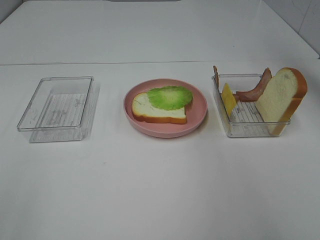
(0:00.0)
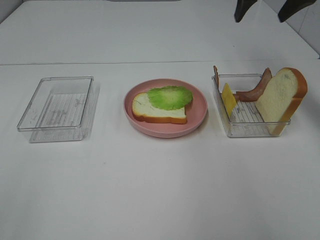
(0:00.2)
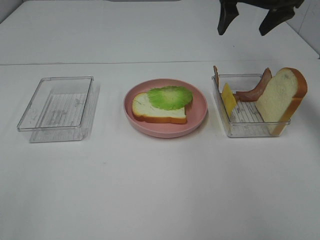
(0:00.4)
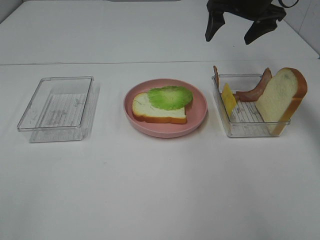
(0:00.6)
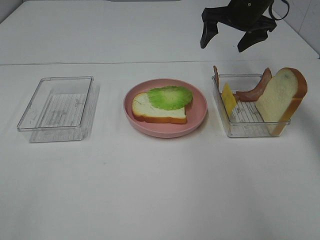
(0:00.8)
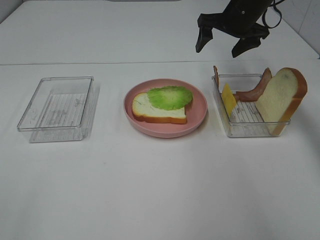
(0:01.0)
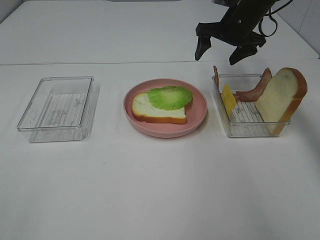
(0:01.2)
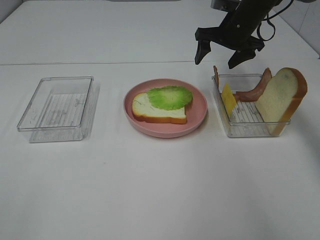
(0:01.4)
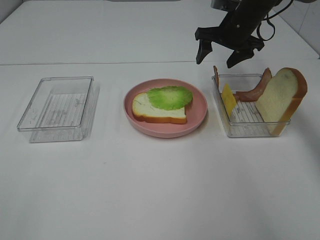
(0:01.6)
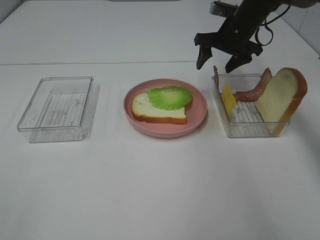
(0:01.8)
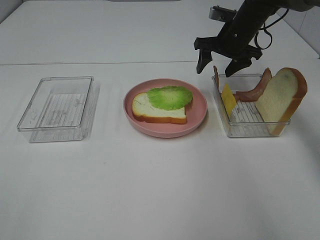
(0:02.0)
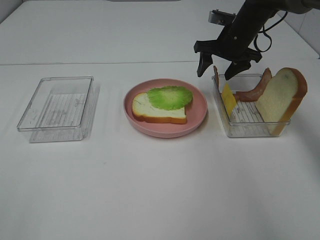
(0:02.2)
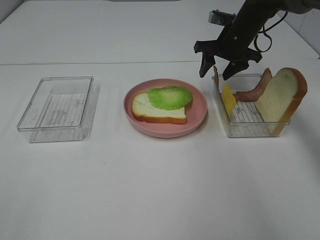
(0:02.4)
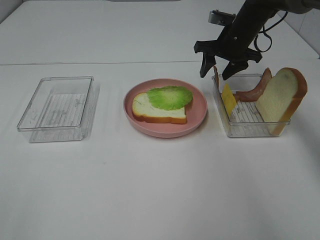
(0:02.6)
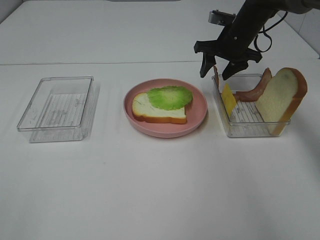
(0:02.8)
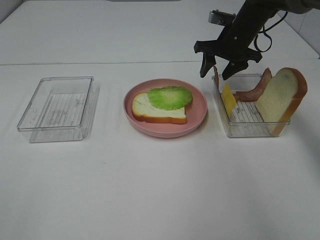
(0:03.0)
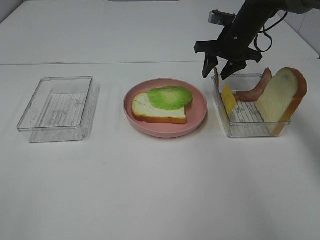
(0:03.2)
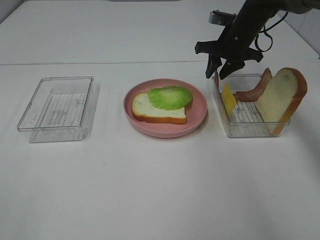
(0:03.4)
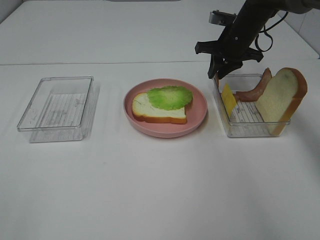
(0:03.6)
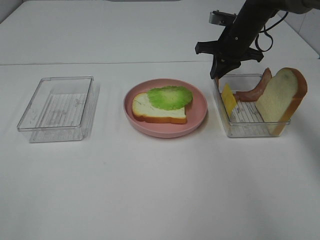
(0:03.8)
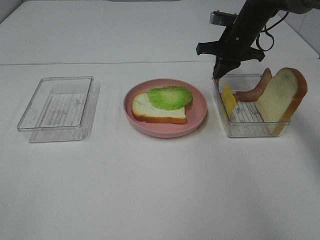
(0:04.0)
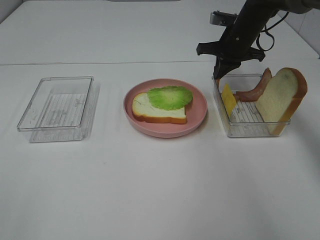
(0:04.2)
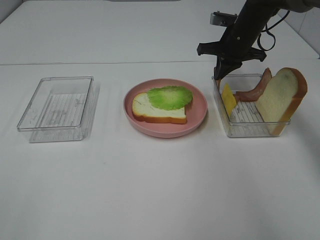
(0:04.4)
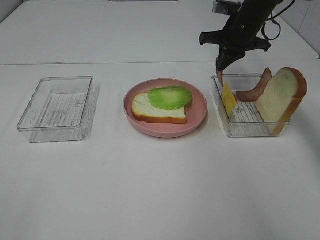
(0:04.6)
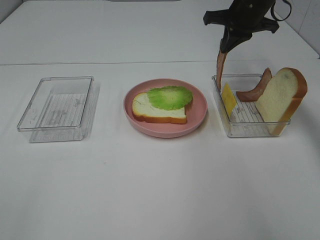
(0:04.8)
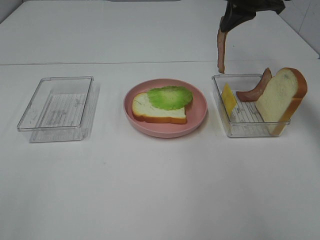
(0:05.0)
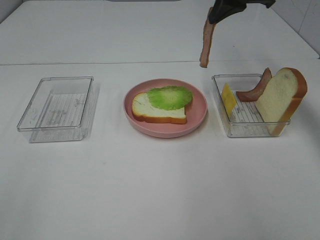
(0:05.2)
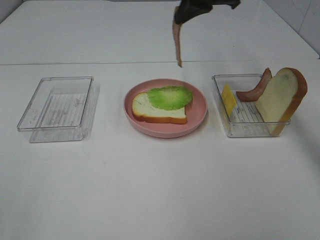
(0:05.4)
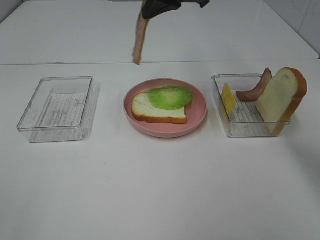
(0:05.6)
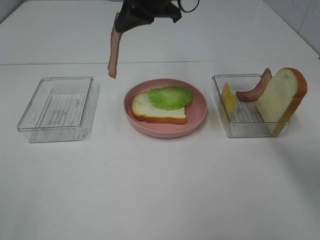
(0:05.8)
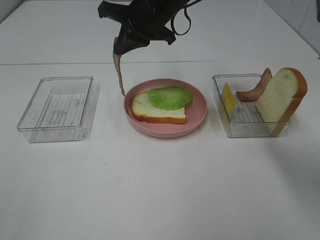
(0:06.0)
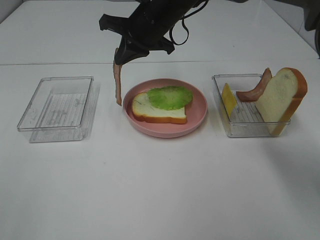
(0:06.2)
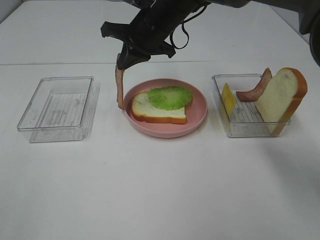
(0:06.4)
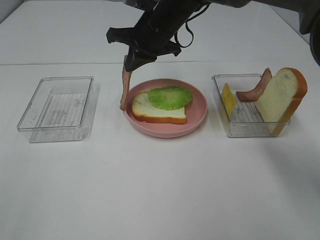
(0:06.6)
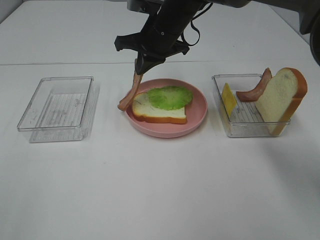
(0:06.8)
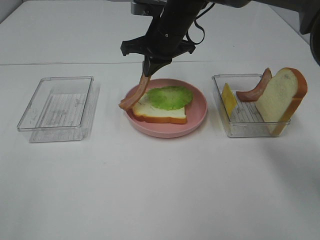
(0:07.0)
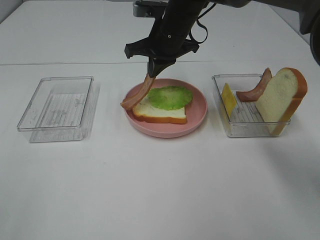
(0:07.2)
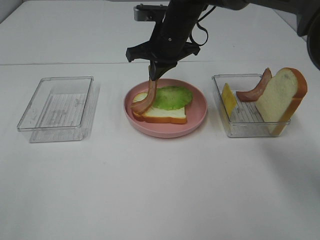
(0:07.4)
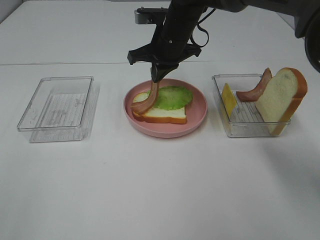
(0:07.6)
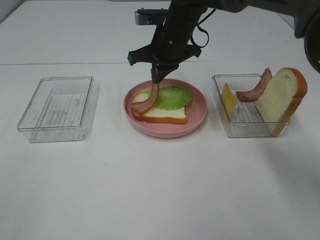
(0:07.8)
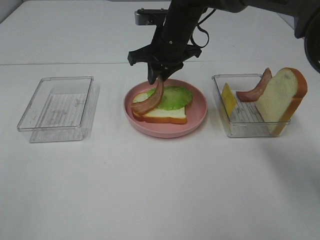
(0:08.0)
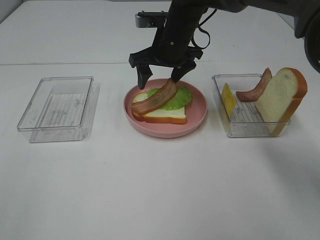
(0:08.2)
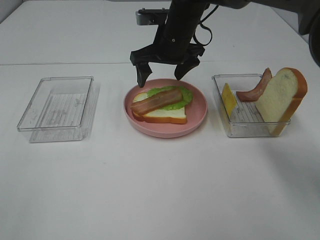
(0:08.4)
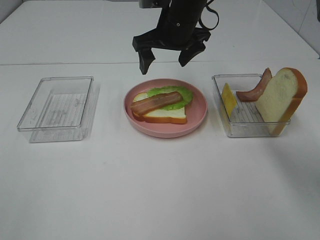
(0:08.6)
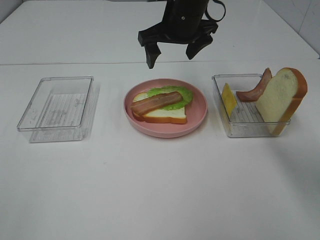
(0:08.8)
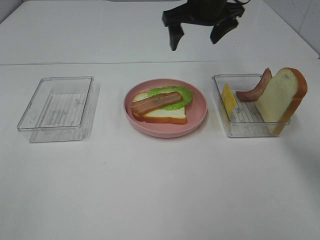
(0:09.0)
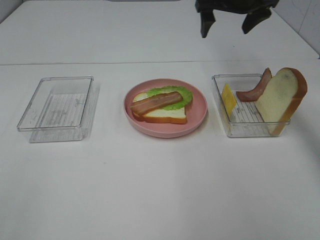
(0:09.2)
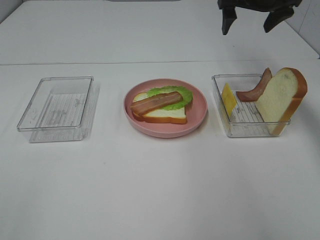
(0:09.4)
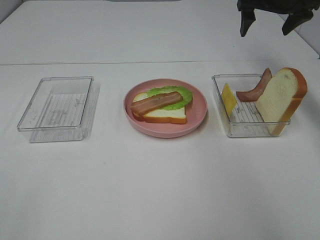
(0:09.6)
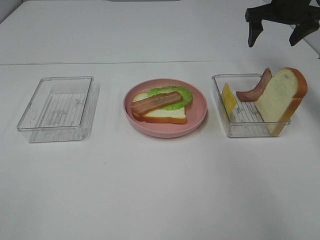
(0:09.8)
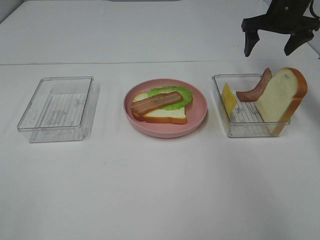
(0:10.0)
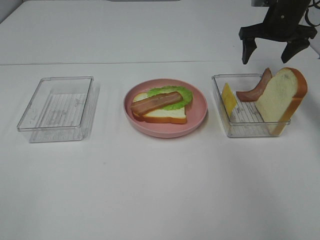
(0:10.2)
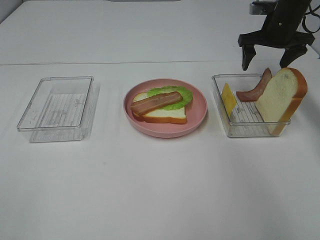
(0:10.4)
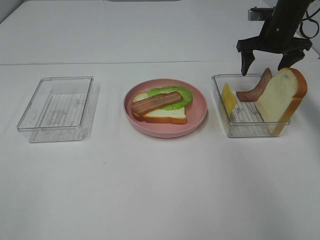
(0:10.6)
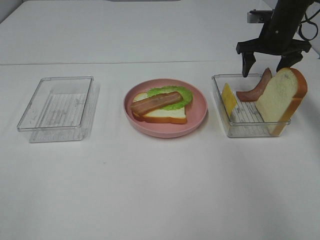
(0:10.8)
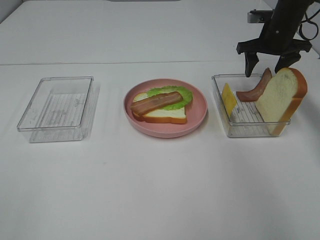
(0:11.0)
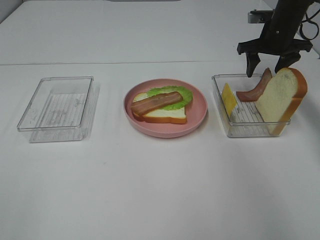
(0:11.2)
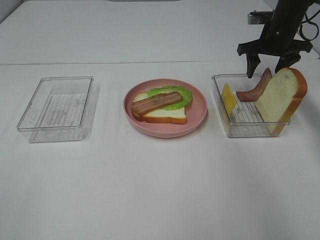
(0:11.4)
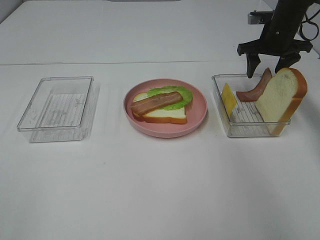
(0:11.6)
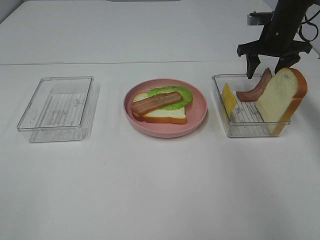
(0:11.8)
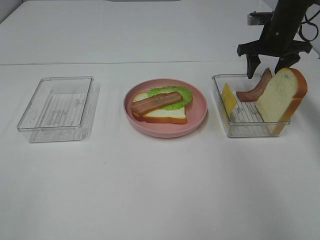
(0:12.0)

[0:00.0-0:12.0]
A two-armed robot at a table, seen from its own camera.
Task of the whole recording: Make sandwiches.
Step, 0:00.0 to 0:04.4: Right hand:grab the bacon.
Step, 0:04.6 to 0:08.4: Right hand:place bacon on lettuce slice.
0:00.0 to 0:01.6: The right gripper moves downward and to the left, roughly 20 cm.
0:01.6 to 0:03.0: The grippers stay close to where they were, moving slightly.
0:03.0 to 0:04.4: The right gripper closes.
0:04.4 to 0:06.0: The right gripper shifts some 20 cm to the left.
0:06.0 to 0:07.6: The right gripper moves roughly 5 cm.
0:07.6 to 0:09.0: The right gripper moves upward and to the right, approximately 10 cm, and opens its fingers.
0:09.0 to 0:10.4: The right gripper moves to the right and downward, some 20 cm.
0:10.4 to 0:12.0: The grippers stay close to where they were, moving slightly.

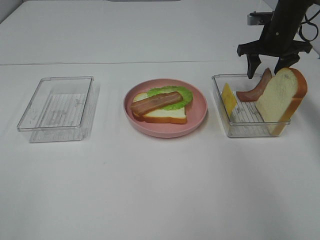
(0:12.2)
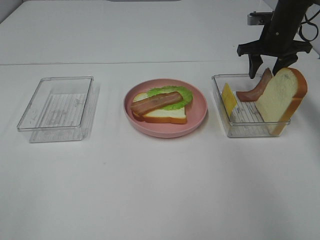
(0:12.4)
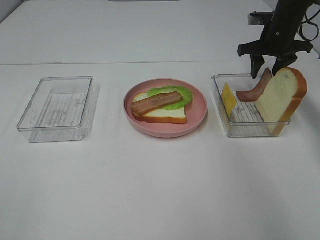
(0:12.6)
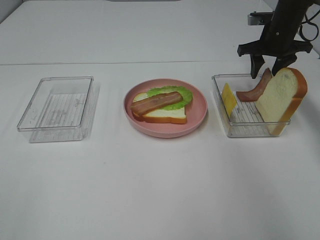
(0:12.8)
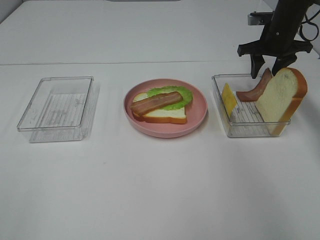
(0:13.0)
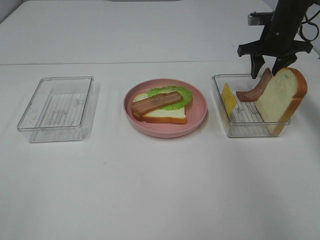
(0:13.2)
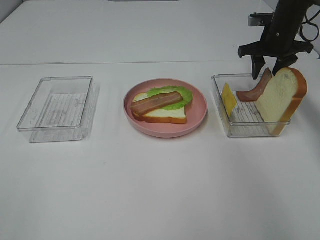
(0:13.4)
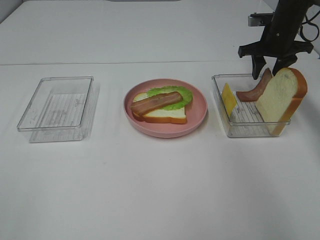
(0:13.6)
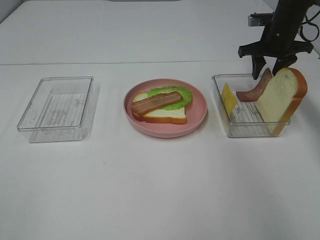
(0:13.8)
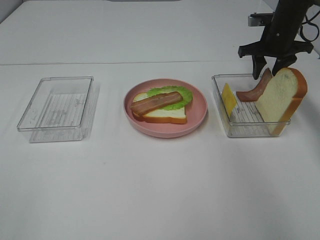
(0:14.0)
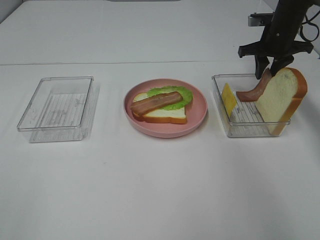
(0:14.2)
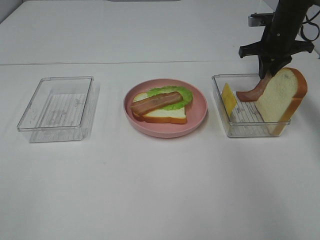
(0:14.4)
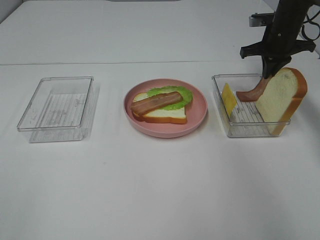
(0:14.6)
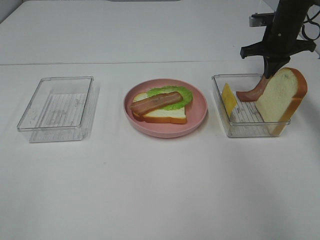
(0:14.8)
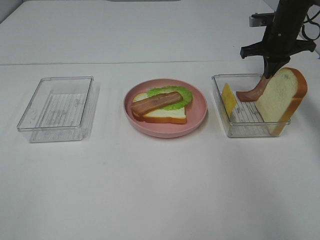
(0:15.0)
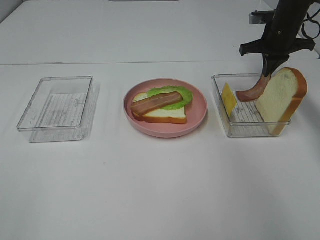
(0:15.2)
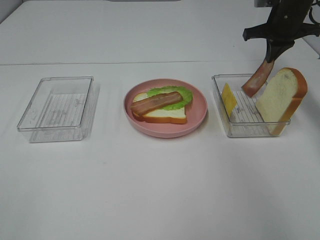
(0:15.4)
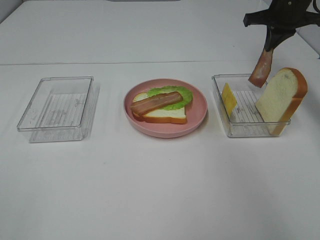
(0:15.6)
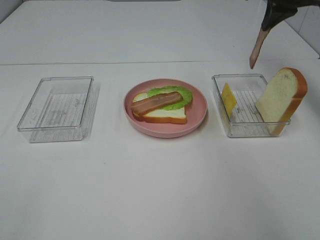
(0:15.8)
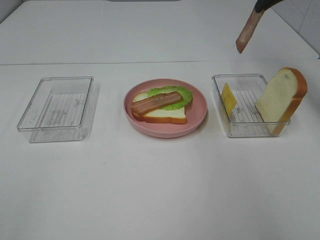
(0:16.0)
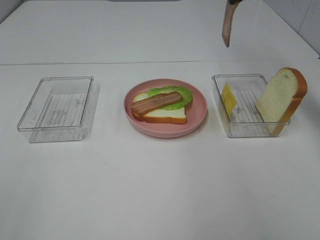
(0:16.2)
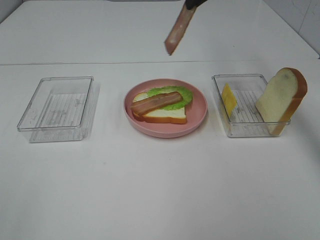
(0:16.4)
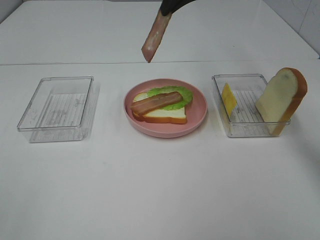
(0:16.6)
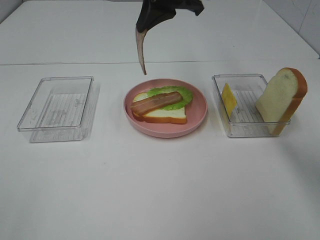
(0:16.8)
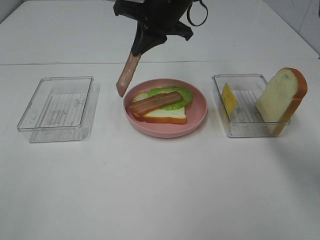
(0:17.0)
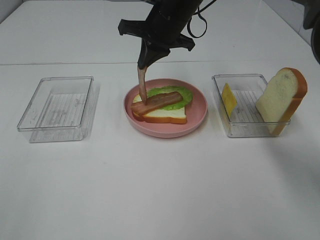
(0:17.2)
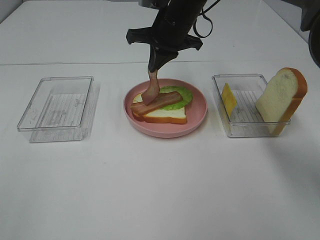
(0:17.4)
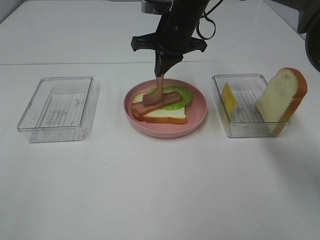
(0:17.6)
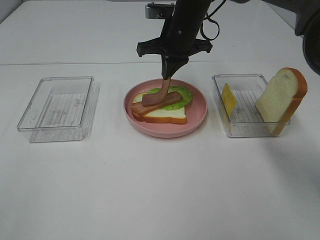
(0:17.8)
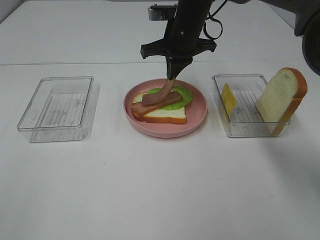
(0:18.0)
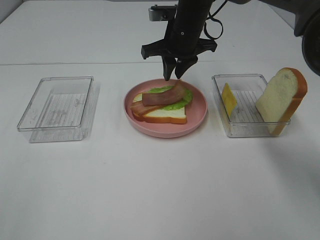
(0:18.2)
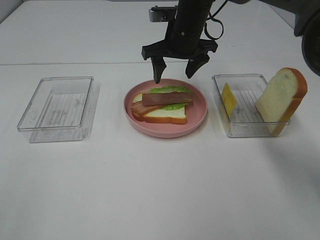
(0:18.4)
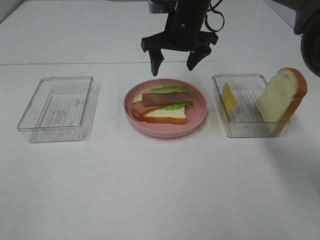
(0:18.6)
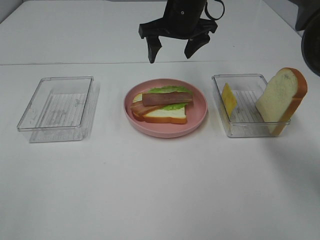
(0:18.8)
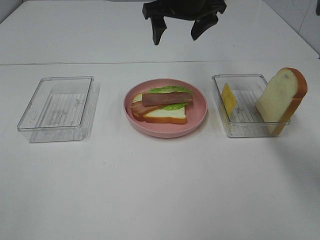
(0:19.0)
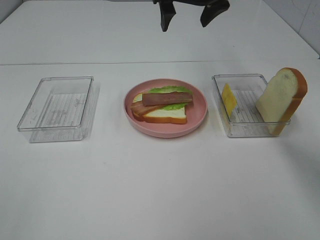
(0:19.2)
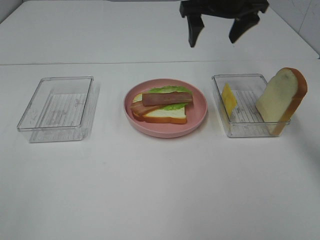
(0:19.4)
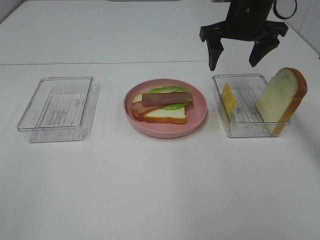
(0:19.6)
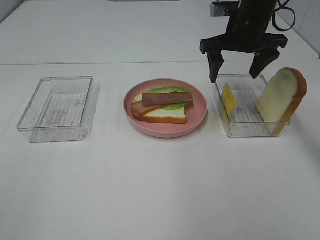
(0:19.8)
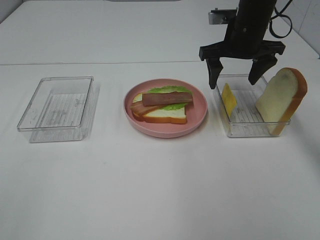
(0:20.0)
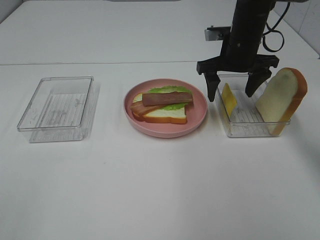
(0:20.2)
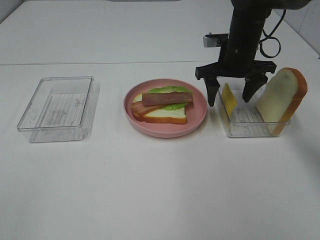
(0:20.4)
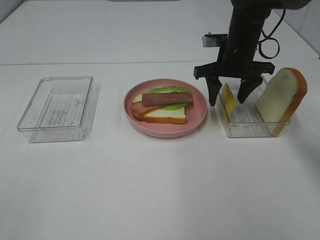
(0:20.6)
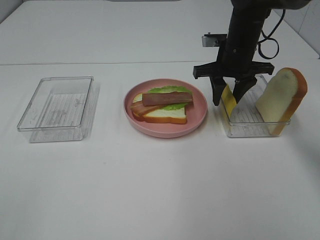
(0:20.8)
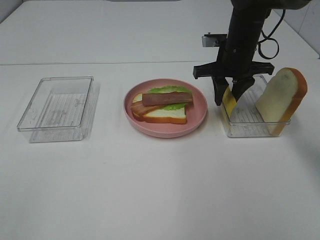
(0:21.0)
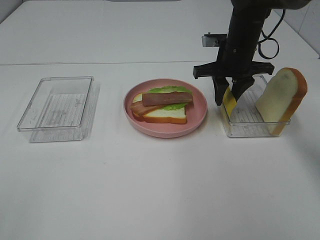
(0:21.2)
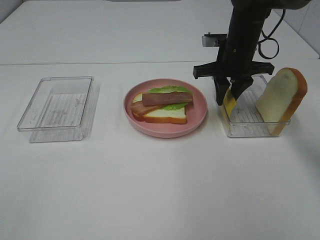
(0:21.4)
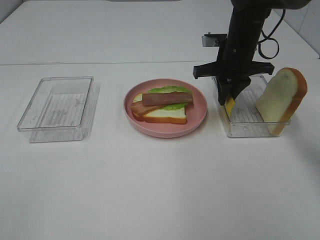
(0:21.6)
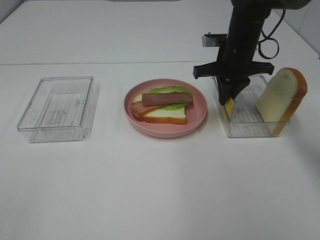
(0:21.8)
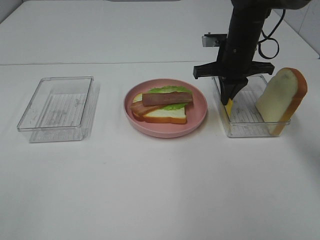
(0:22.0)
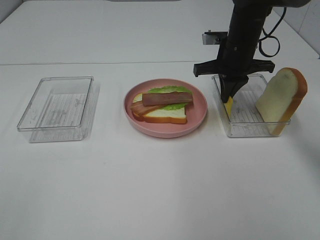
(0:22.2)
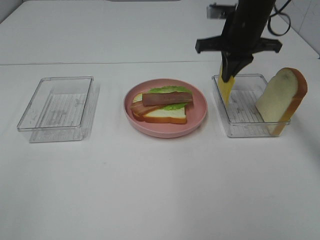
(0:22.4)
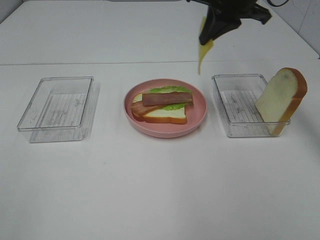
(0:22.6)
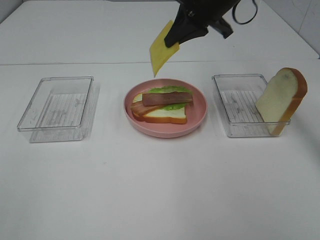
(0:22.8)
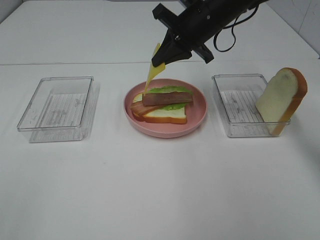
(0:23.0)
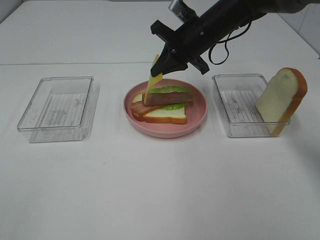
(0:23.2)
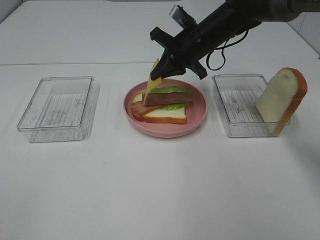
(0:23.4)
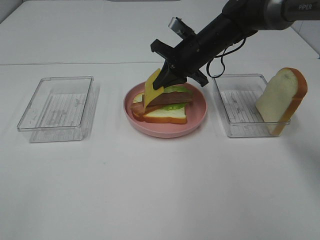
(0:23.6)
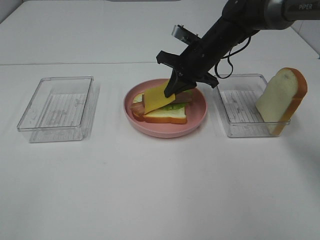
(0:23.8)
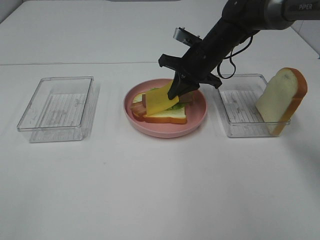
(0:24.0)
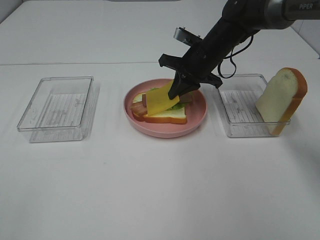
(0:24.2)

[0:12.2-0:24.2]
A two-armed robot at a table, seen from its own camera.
Task of the whole recording: Make sandwiches.
Step, 0:15.2 to 0:18.4: Right hand:place bacon on bacon.
Step, 0:18.6 to 0:21.8: Right hand:grab the cheese slice.
0:12.2 to 0:13.8: Neither gripper changes place.
0:13.8 to 0:15.2: The right gripper closes its fingers.
0:15.2 to 0:16.6: The right gripper travels to the left, upward and backward by about 25 cm.
0:16.6 to 0:18.2: The right gripper goes some 15 cm downward, and opens.
0:18.2 to 0:19.8: The right gripper moves to the right, some 10 cm, and opens its fingers.
0:19.8 to 0:21.2: The right gripper goes about 5 cm downward, and closes up.
0:21.2 to 0:22.6: The right gripper shifts about 15 cm upward, and closes.
0:22.6 to 0:24.2: The right gripper shifts approximately 15 cm downward.
